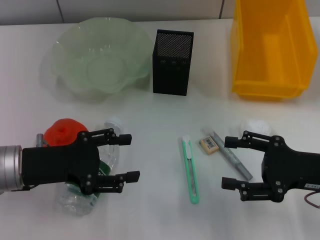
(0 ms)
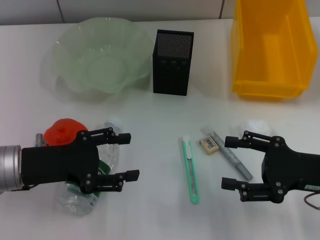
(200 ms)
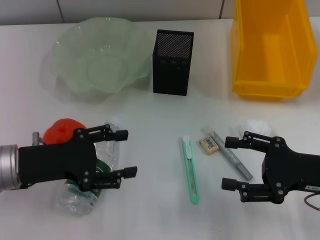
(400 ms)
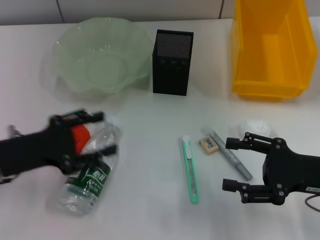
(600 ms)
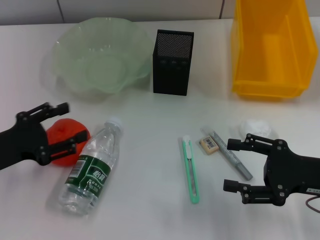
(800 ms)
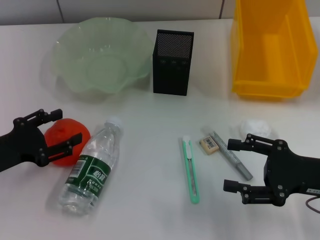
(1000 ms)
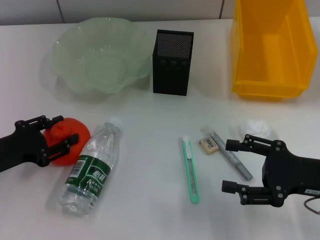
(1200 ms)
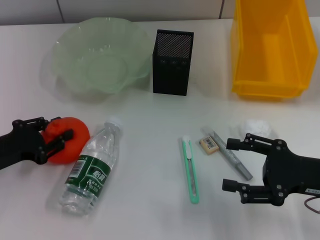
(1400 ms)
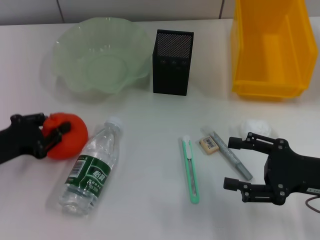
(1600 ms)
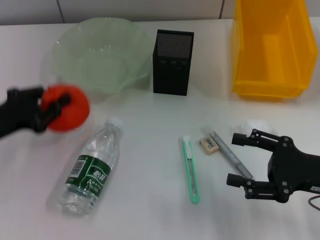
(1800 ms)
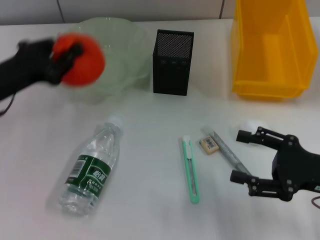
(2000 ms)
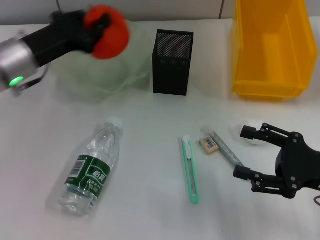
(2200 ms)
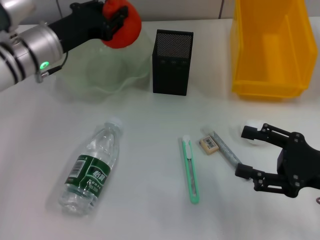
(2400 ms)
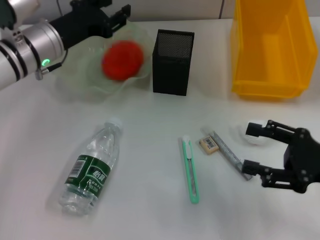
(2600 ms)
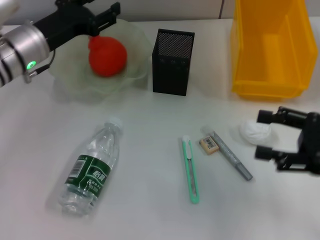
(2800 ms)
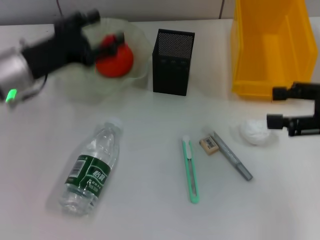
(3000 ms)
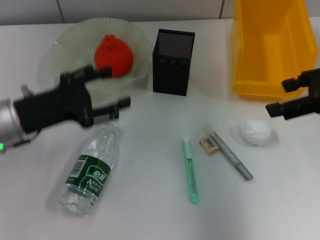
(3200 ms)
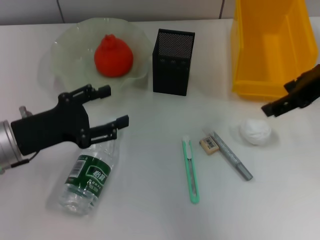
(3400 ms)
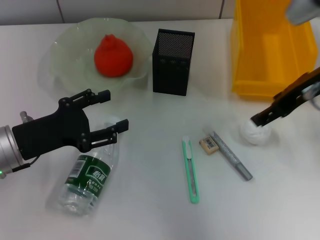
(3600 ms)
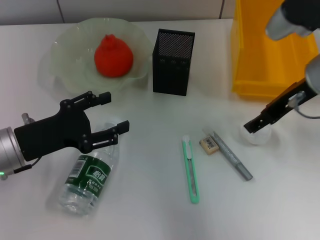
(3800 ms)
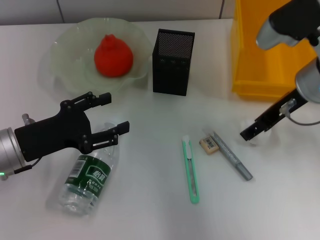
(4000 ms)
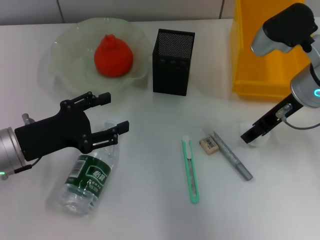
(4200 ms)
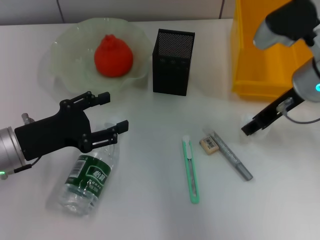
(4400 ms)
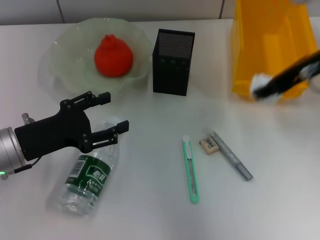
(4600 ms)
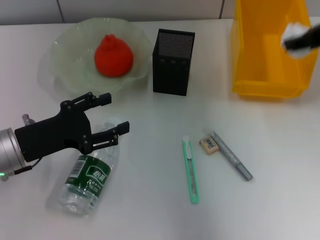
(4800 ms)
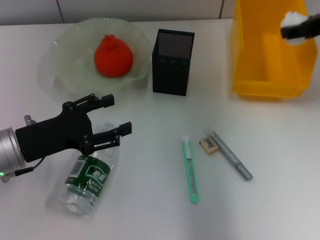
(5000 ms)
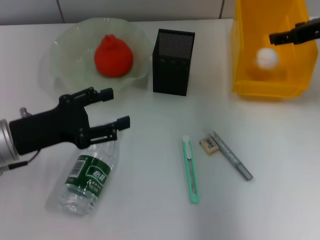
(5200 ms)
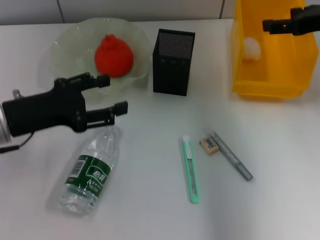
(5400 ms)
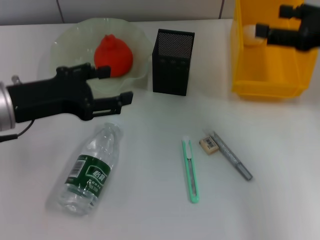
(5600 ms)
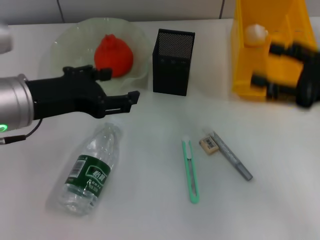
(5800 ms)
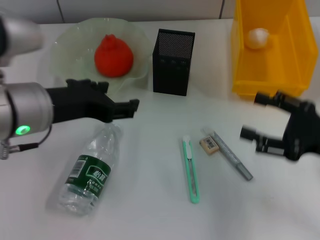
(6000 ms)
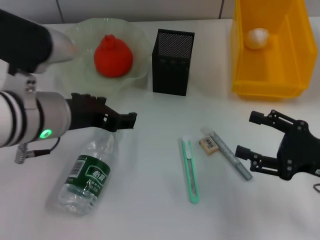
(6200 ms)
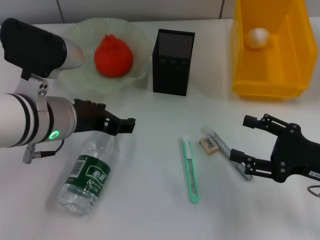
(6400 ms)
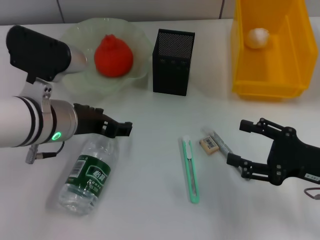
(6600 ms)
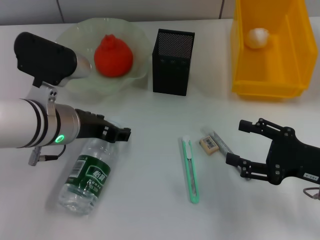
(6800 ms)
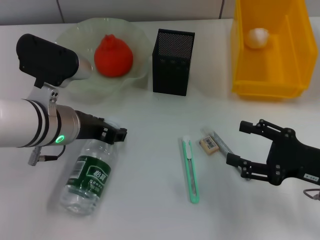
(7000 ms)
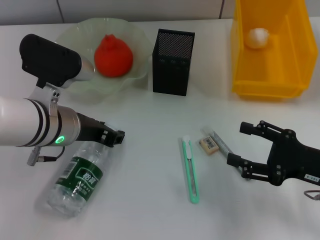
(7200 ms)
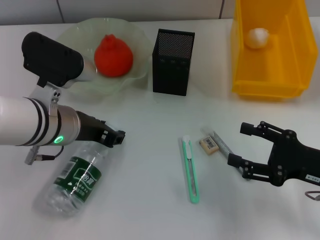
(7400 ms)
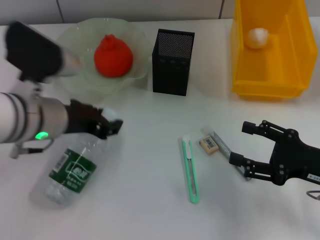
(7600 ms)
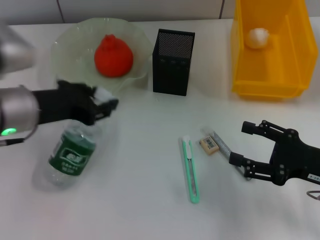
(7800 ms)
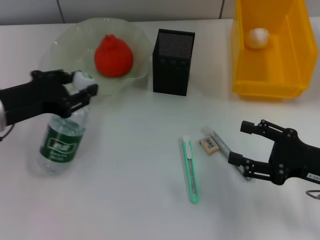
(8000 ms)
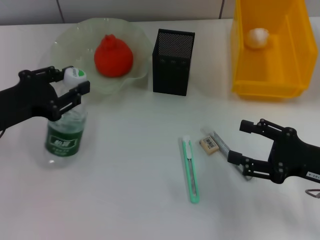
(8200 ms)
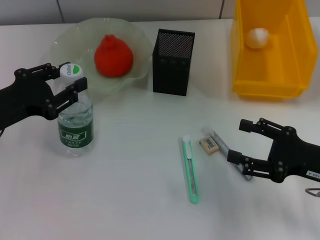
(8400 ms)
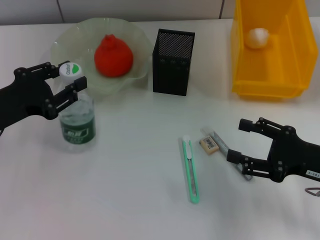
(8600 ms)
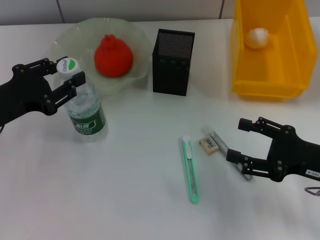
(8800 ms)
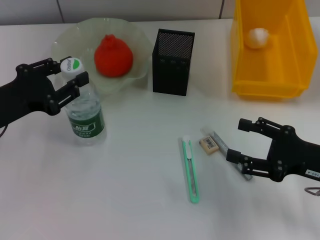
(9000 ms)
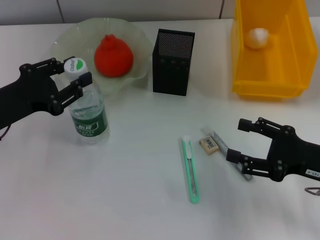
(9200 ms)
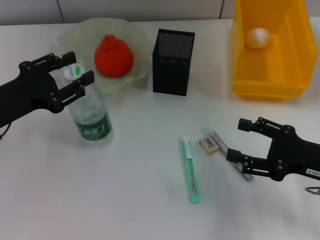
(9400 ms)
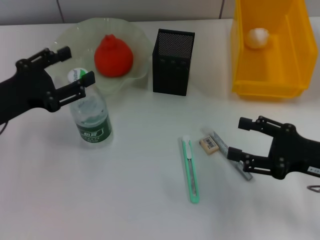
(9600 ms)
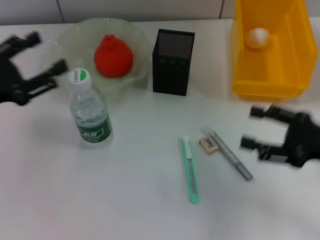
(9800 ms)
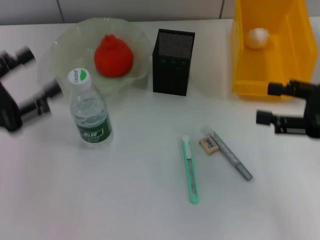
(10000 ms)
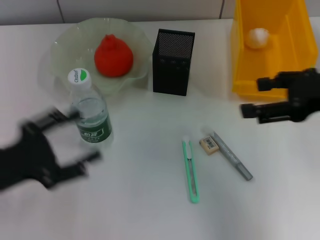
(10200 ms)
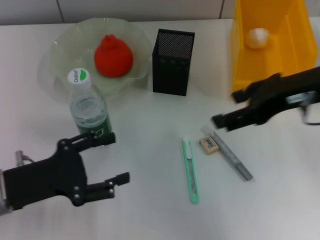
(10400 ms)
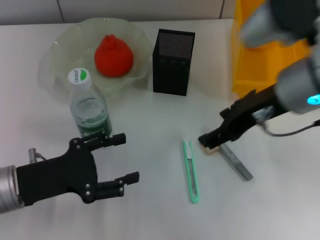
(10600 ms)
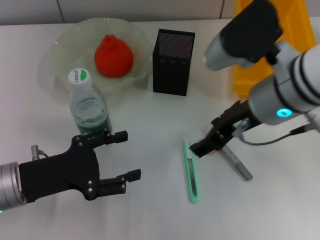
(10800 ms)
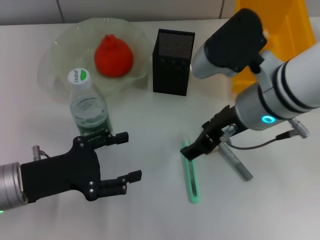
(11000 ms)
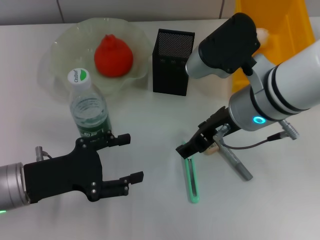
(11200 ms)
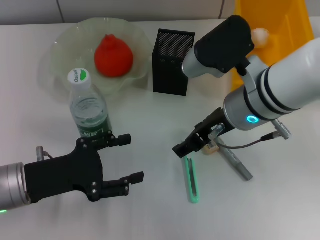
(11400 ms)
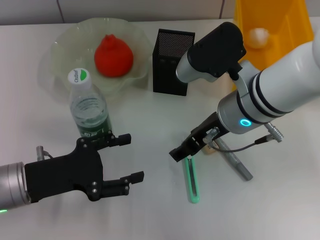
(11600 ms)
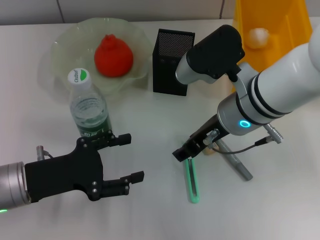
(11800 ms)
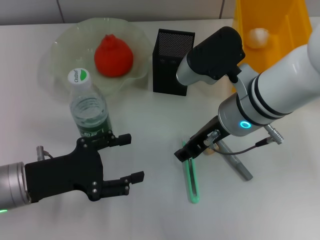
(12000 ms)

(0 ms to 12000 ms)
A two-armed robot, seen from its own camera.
Step, 0 ms - 1400 ms: Grab the orange with the left hand.
Step, 1600 ms - 2800 ms: Place the orange into the fruit bowl with the left hand.
Step, 3000 ms - 4000 ms: Grab the paper ball with the right hand.
Step, 4200 ms - 5200 ms: Place the paper ball into the trash can with the right hand.
Step, 5600 ms - 7200 ms: Grab the water bottle with the left hand.
Step, 7400 ms - 9800 ms: Place the water bottle on the table with the left hand.
0 ms - 1600 ms: The left gripper moves to the left, roughly 5 cm, and closes up.
1600 ms - 3000 ms: The right gripper is displaced upward by about 10 cm. The left gripper travels forward, to the right and upward by roughly 15 cm, and opens up.
3000 ms - 4400 ms: The right gripper travels to the left and forward by about 15 cm; the left gripper travels backward by roughly 10 cm.
4400 ms - 6000 ms: The right gripper heads backward, to the right and downward, covering some 15 cm. The left gripper heads upward and to the right, covering approximately 15 cm.
6000 ms - 7600 ms: The left gripper moves approximately 5 cm, and closes.
7600 ms - 9000 ms: The left gripper travels to the left by approximately 10 cm.
9000 ms - 10400 ms: The left gripper moves backward, about 5 cm, and opens up; the right gripper moves upward, to the left and forward, approximately 20 cm.
10400 ms - 12000 ms: The right gripper shifts some 15 cm to the left and downward.

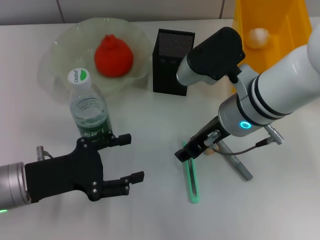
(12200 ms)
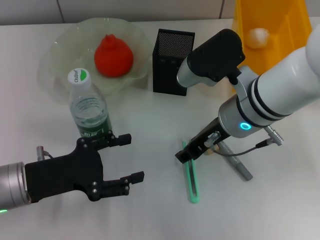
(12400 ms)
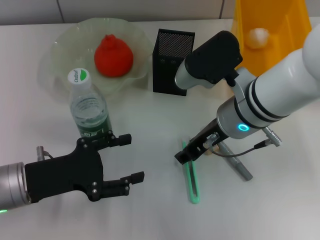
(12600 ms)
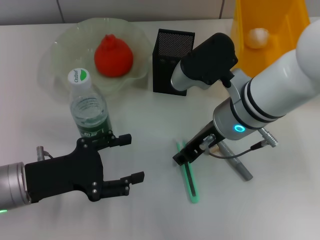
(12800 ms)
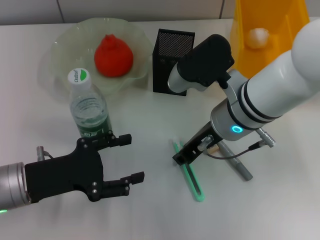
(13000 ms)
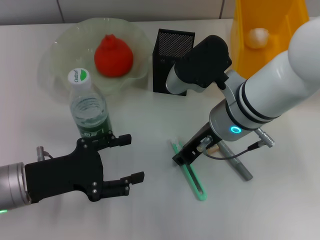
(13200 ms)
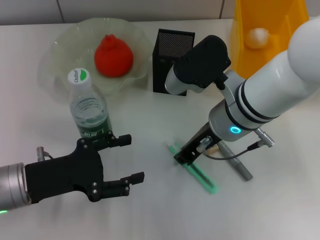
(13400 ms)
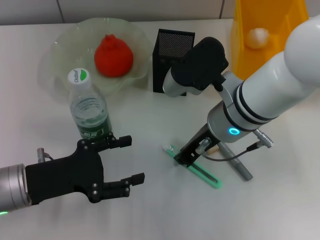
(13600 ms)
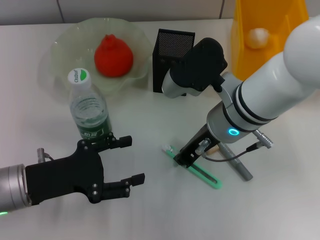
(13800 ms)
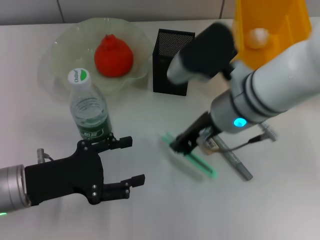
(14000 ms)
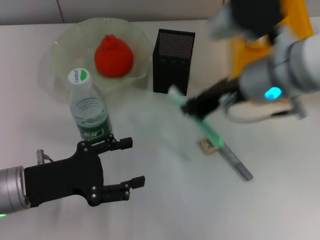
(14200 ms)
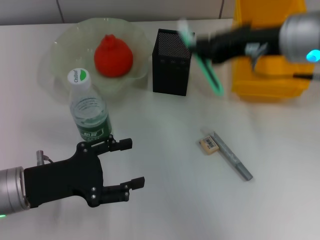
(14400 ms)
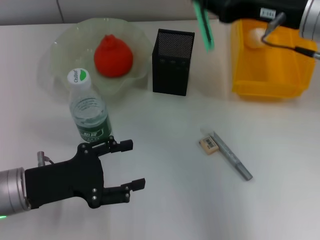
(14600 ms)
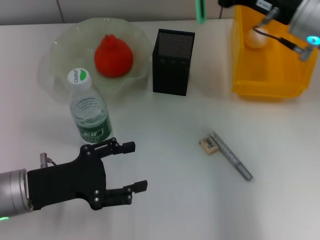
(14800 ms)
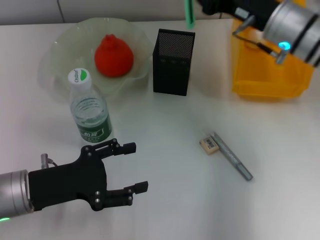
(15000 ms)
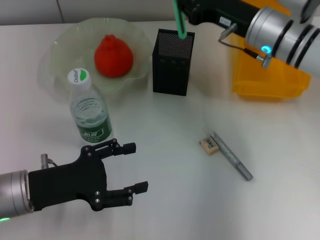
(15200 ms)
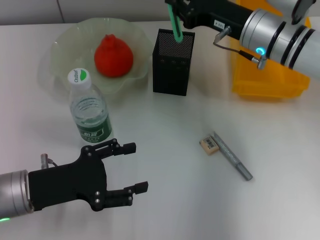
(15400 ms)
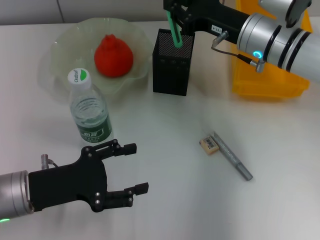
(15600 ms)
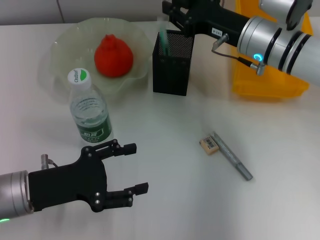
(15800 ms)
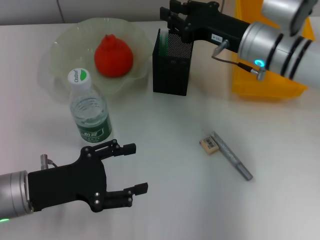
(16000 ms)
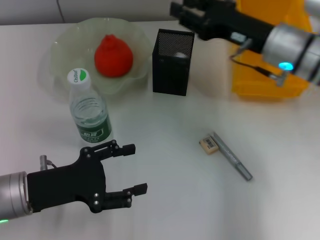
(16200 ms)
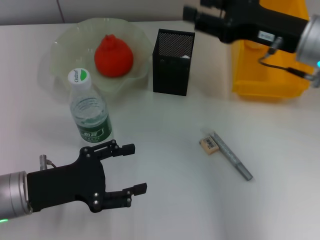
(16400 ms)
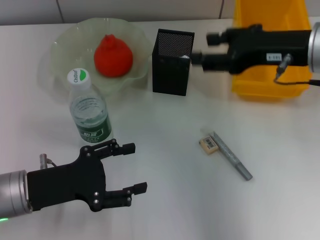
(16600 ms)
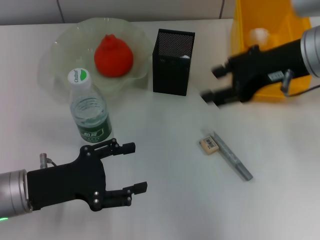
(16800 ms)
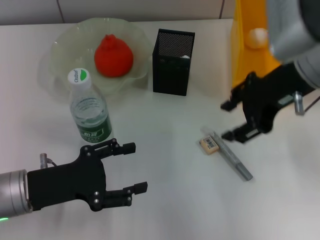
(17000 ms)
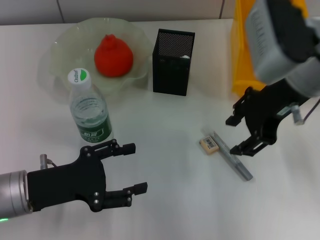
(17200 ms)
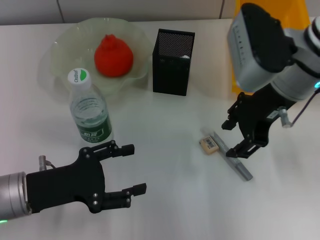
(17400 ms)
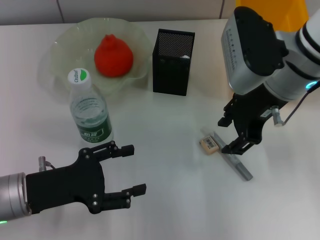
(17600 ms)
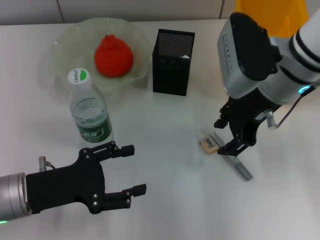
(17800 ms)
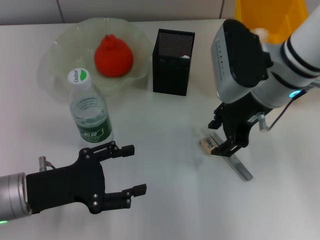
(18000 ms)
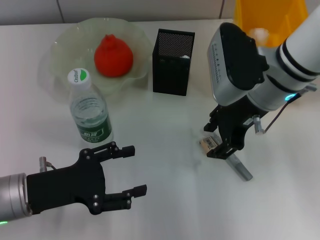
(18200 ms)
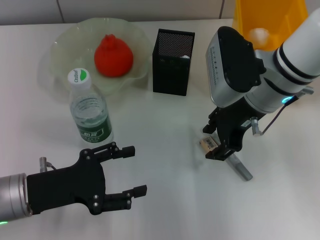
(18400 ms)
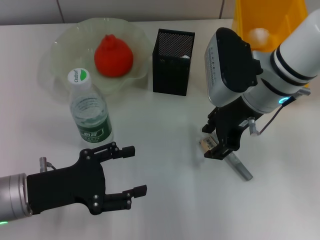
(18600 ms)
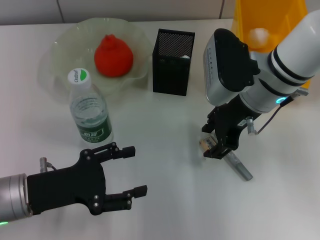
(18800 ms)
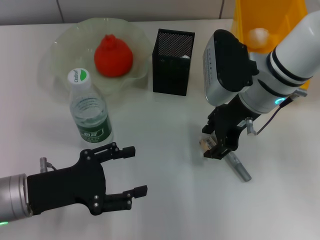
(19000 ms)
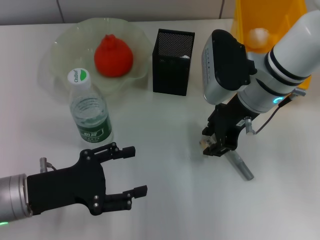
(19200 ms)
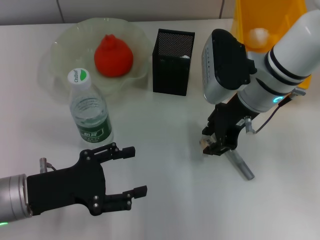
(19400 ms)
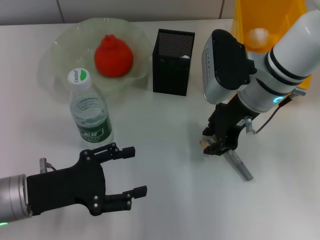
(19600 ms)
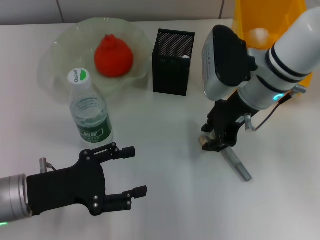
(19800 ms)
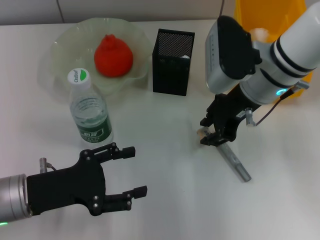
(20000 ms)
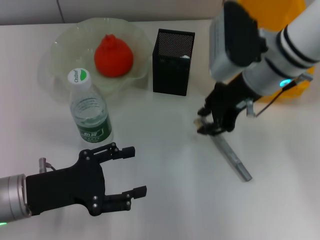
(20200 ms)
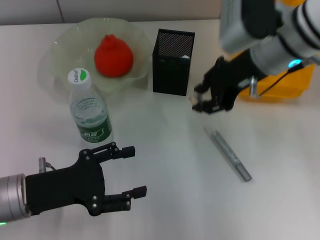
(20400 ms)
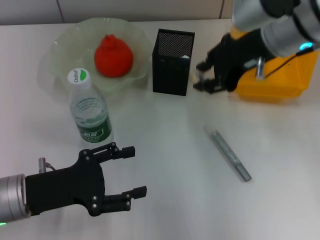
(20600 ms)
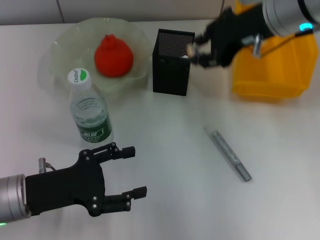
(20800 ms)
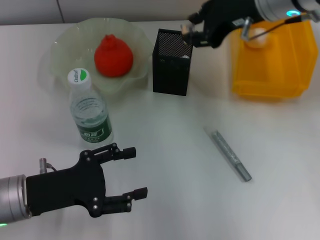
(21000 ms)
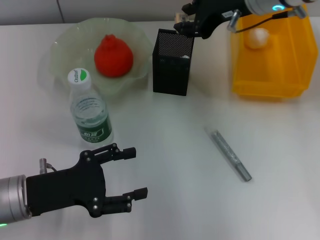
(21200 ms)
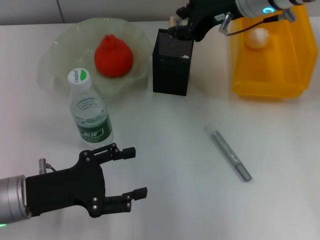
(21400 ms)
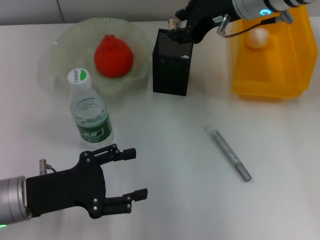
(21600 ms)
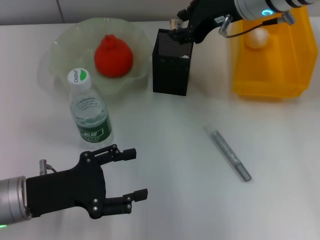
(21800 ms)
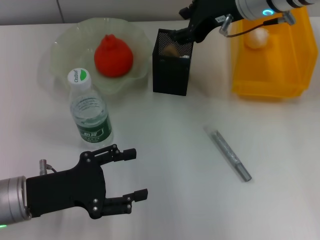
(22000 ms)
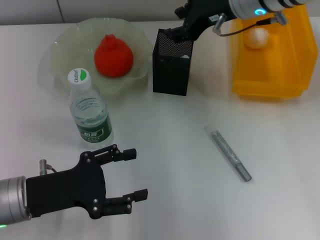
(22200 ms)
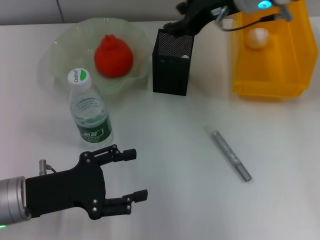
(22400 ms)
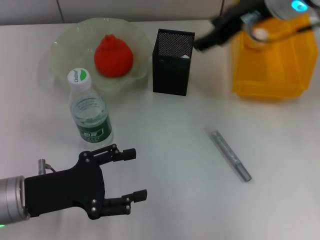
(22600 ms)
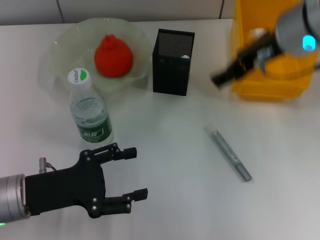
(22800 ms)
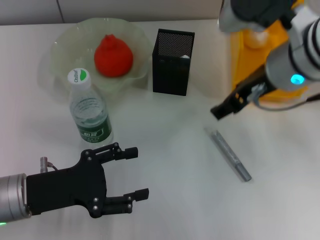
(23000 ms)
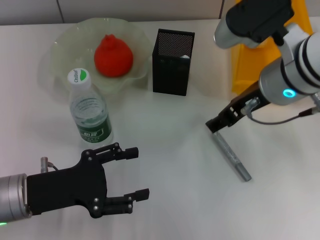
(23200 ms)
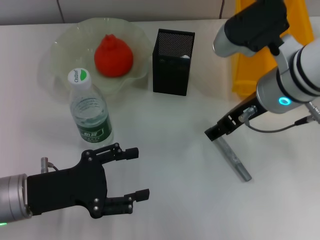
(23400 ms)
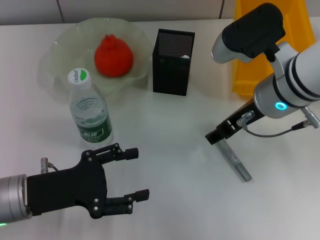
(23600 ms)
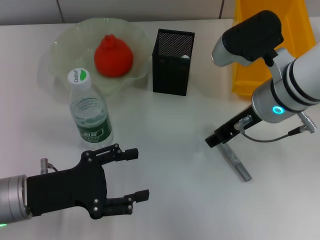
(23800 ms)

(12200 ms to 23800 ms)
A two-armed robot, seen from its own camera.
Step, 13600 ms - 15800 ms: Place the blue utility knife into the pen holder with the right hand.
Step, 16000 ms - 19800 ms: Grab the eraser with the right hand.
Step, 20000 ms - 22200 ms: Put the eraser into the pen holder with the right hand.
12200 ms - 13600 ms: The right gripper closes its fingers.
13600 ms - 15000 ms: The right gripper is displaced to the right and forward by some 10 cm.
15000 ms - 16600 ms: The right gripper is displaced backward and upward by some 10 cm, and opens its fingers.
16600 ms - 18000 ms: The right gripper shifts approximately 5 cm to the left.
18000 ms - 19400 ms: The grippers make only small movements.
19400 ms - 21000 ms: The right gripper travels upward by some 10 cm.
21000 ms - 22400 ms: The grippers make only small movements.
22400 ms - 23800 ms: The right gripper is displaced backward and downward by about 10 cm.
